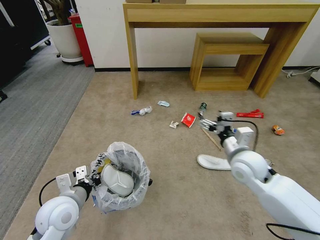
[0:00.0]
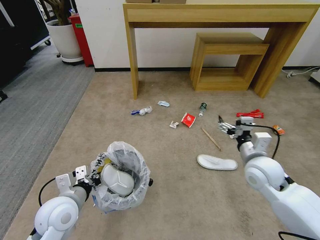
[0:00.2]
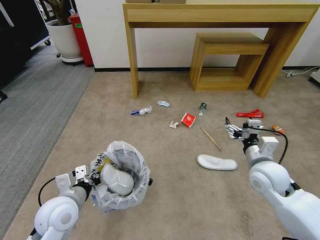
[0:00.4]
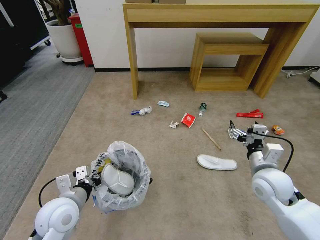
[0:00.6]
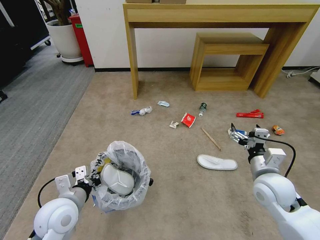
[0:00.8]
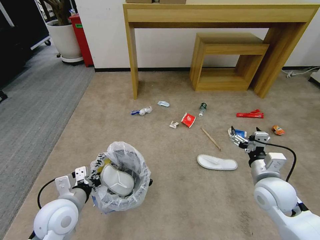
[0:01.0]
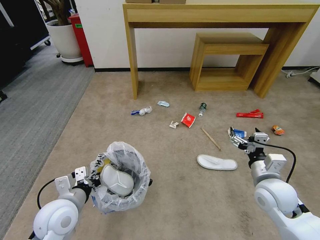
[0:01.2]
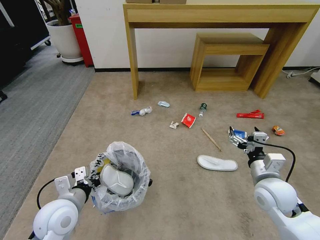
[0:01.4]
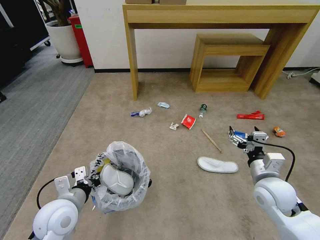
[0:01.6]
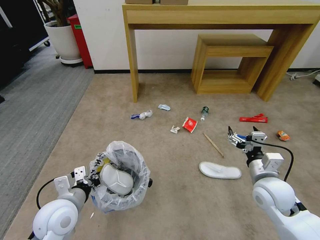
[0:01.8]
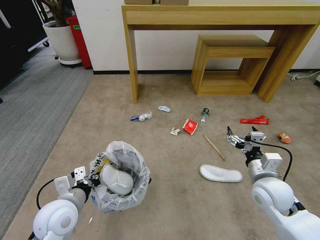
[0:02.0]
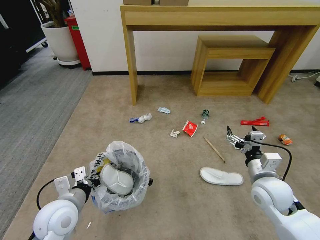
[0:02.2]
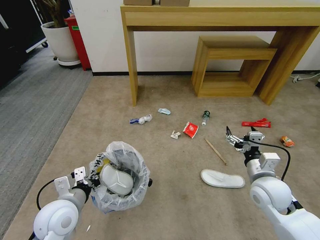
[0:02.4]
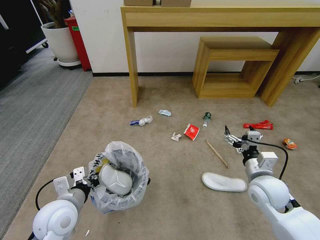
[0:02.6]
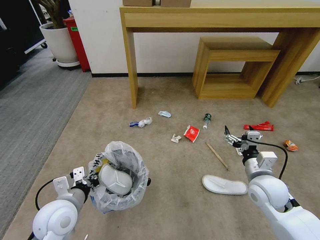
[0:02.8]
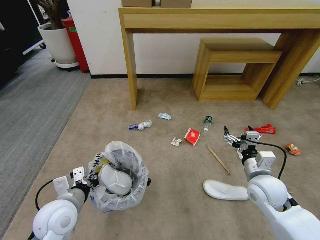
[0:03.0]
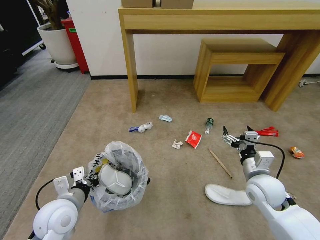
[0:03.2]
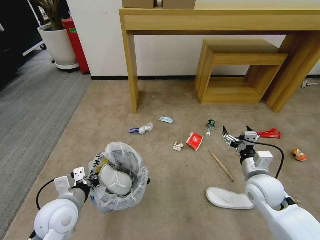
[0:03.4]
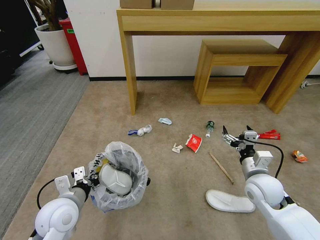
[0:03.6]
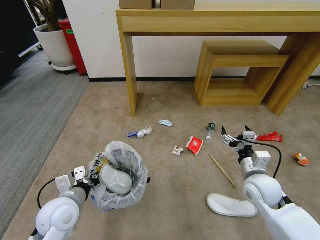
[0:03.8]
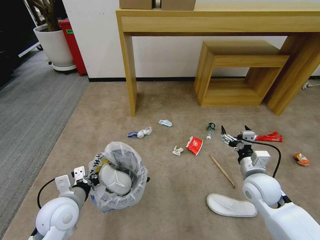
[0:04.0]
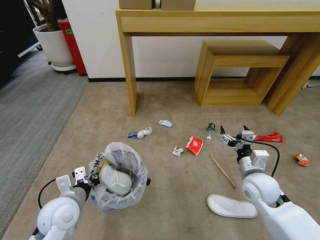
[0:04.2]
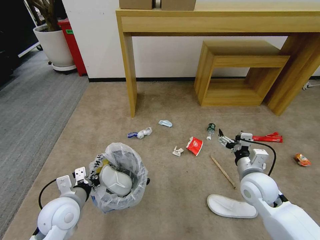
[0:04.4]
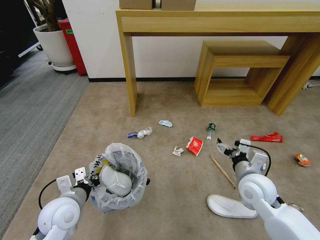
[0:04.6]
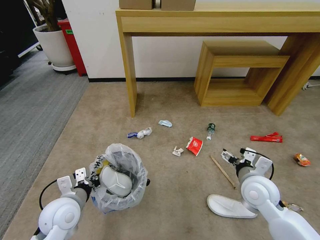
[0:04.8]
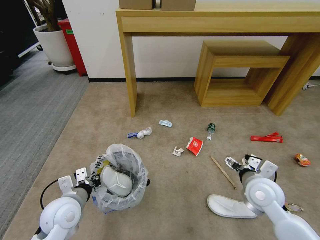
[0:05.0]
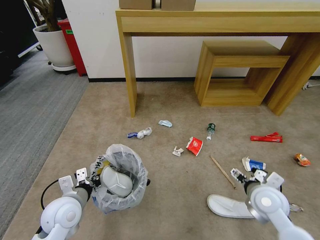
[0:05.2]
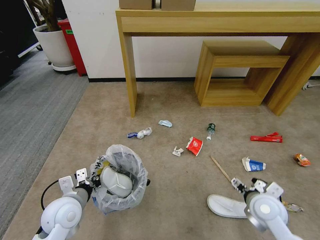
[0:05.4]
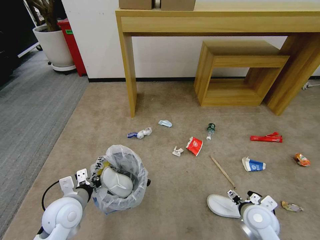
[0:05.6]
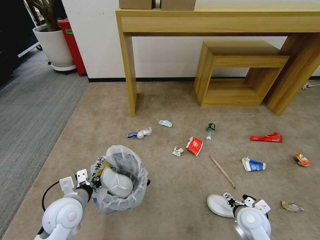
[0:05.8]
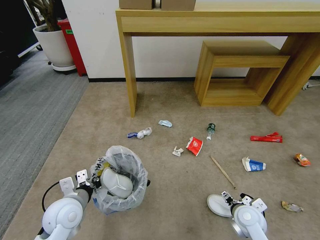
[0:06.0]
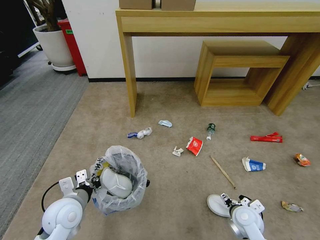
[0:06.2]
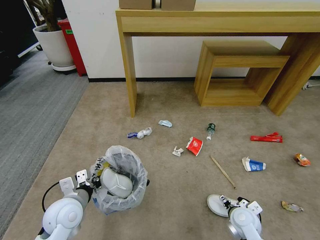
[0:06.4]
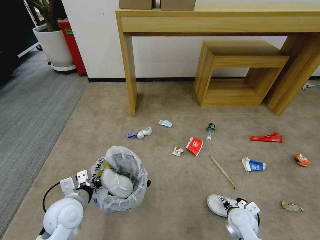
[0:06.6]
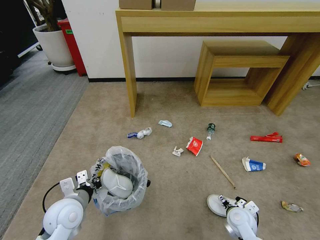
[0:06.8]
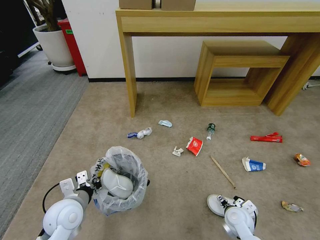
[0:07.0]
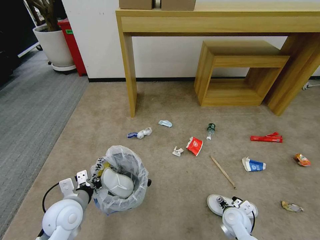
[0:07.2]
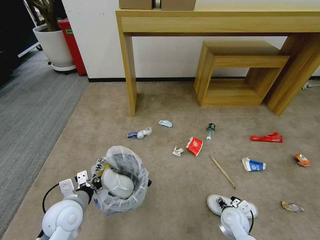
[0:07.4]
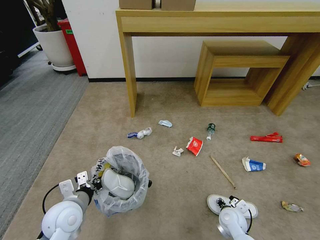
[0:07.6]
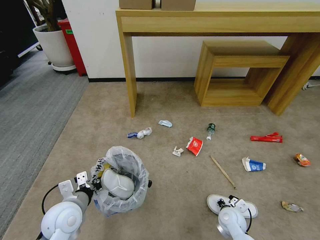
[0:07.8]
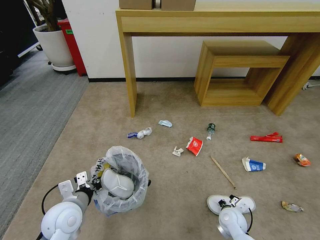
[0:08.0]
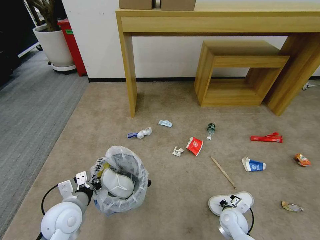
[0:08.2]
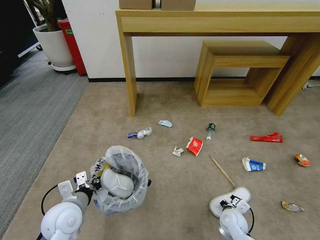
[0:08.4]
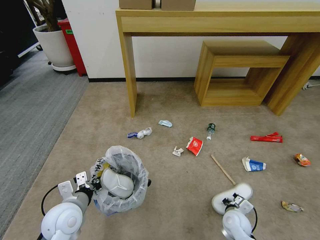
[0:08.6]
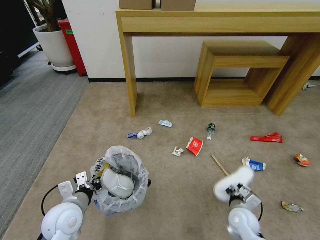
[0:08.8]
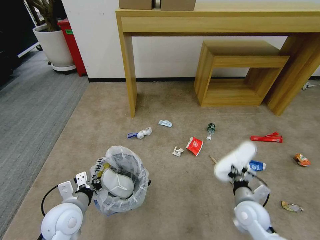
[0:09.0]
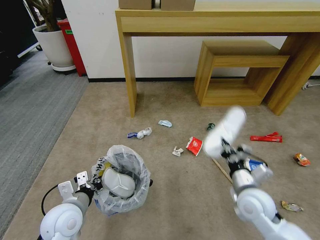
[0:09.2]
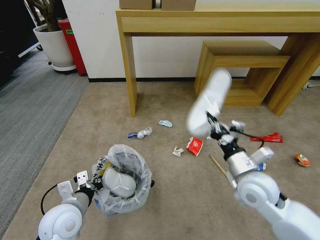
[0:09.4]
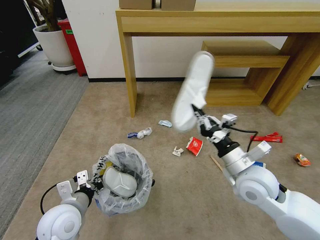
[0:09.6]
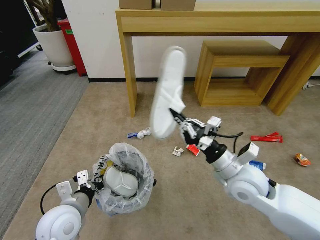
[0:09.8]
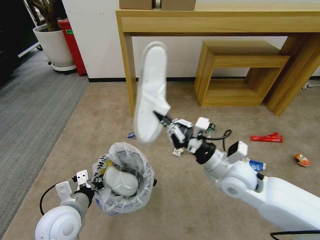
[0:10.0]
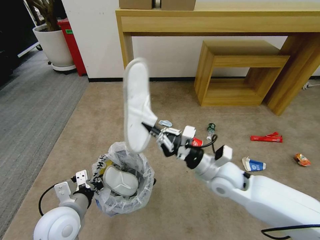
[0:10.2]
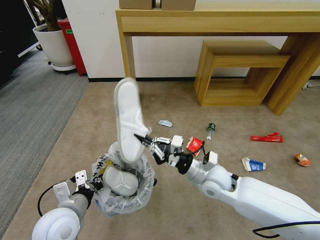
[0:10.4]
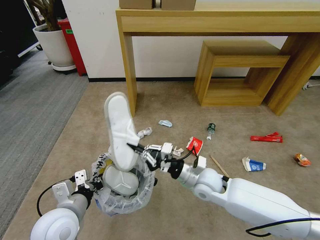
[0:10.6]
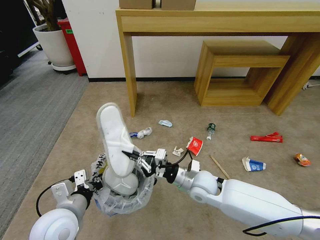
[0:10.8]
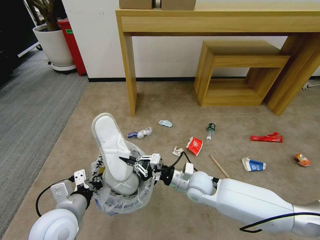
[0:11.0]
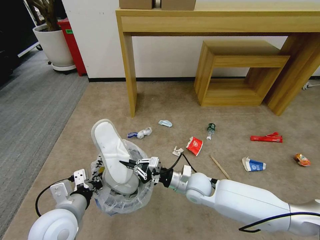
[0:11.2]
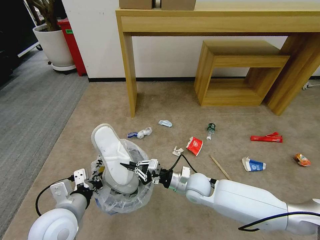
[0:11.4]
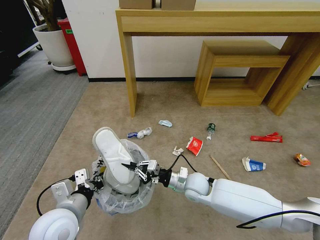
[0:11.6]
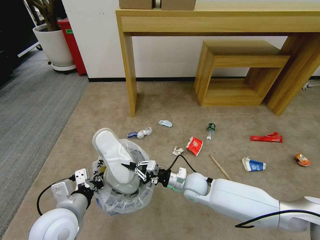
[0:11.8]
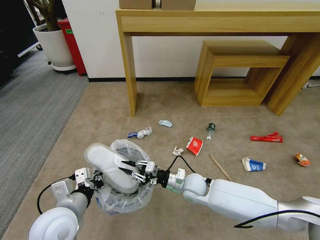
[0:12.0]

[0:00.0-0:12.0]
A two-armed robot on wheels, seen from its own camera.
Task of the whole recording: Pick up the trash bin and place the garbage on the floor into it.
0:00.0 to 0:01.6: The right gripper moves backward and to the right, about 10 cm.
0:04.4 to 0:06.0: The right gripper goes about 15 cm downward and backward.
0:06.0 to 0:07.6: The right gripper heads downward, covering some 10 cm, and closes its fingers.
0:07.6 to 0:09.0: The right gripper is displaced upward by some 10 cm, and closes.
0:09.0 to 0:10.4: The left gripper moves roughly 5 cm, while the right gripper heads to the left, upward and forward, covering roughly 20 cm.
0:10.4 to 0:12.0: The right gripper travels downward by about 10 cm.

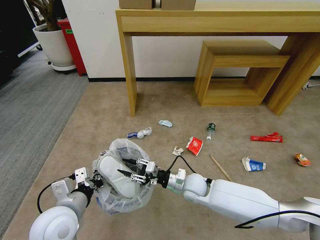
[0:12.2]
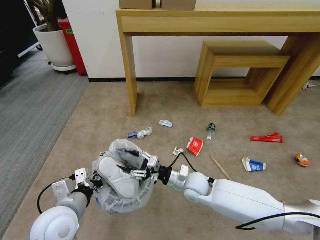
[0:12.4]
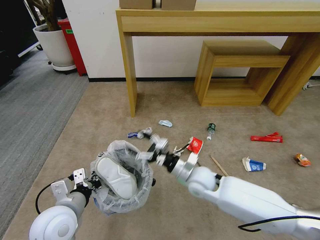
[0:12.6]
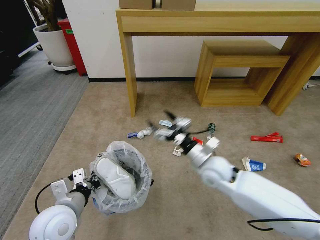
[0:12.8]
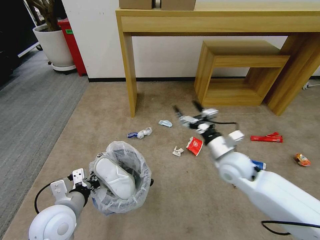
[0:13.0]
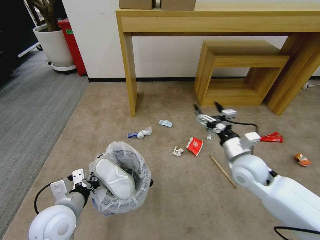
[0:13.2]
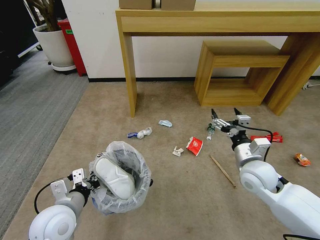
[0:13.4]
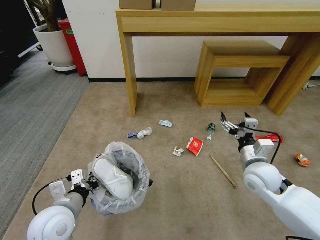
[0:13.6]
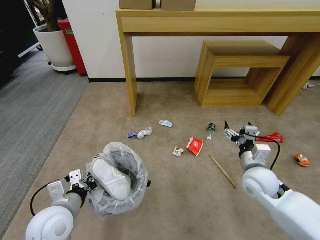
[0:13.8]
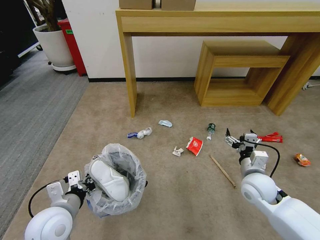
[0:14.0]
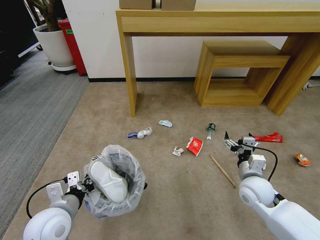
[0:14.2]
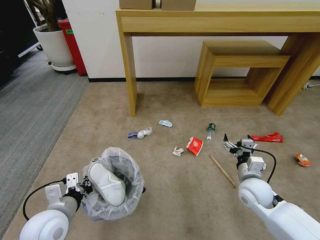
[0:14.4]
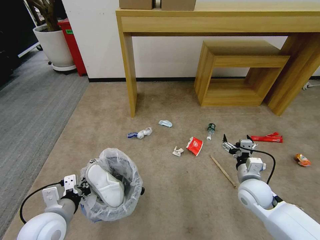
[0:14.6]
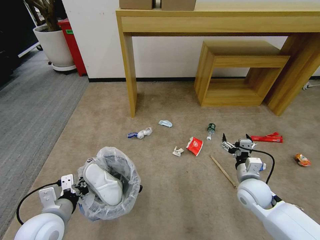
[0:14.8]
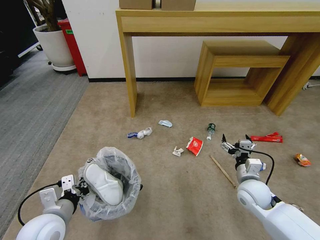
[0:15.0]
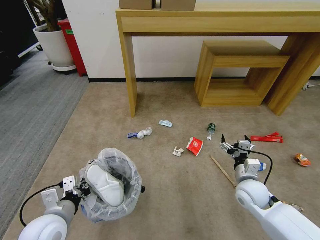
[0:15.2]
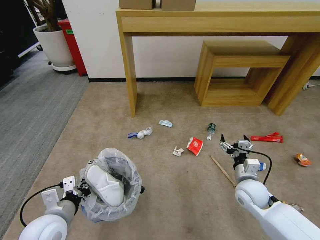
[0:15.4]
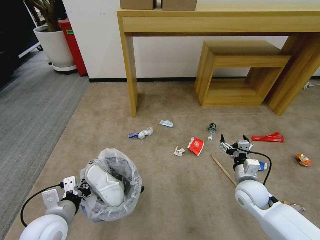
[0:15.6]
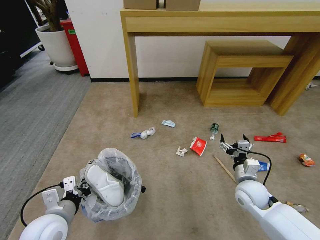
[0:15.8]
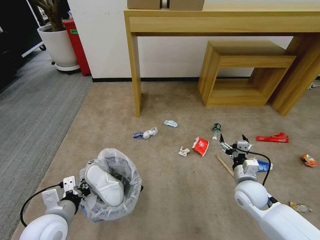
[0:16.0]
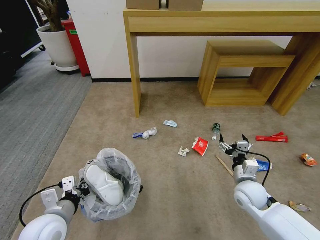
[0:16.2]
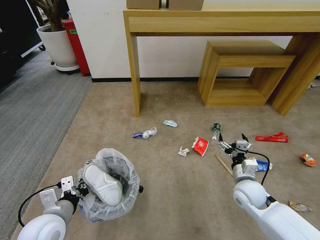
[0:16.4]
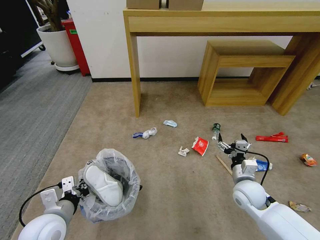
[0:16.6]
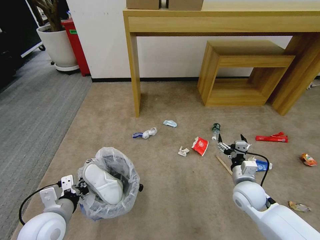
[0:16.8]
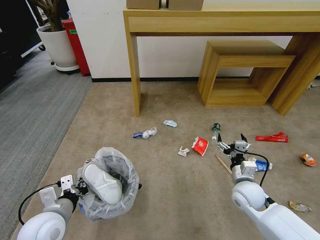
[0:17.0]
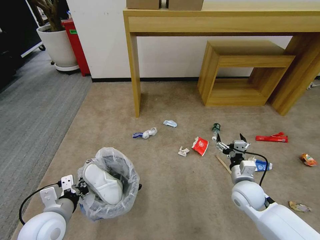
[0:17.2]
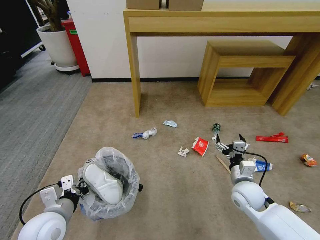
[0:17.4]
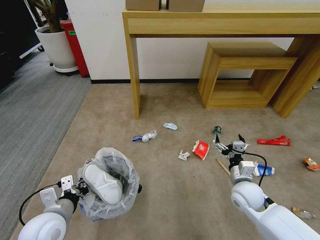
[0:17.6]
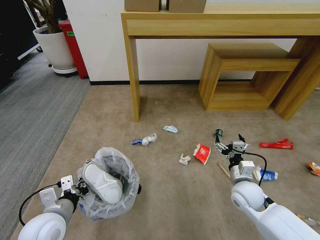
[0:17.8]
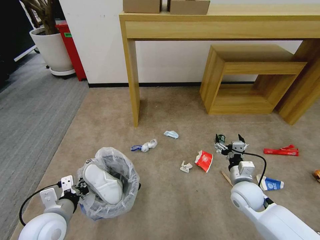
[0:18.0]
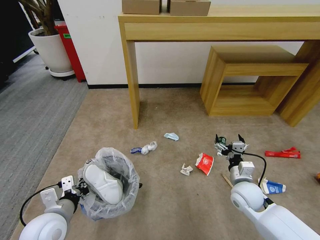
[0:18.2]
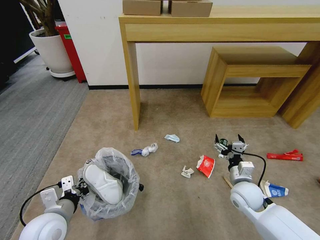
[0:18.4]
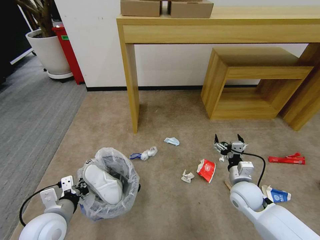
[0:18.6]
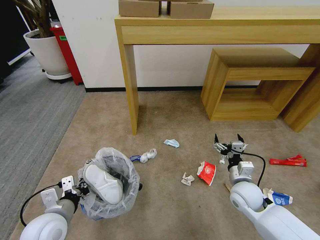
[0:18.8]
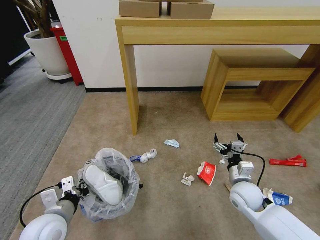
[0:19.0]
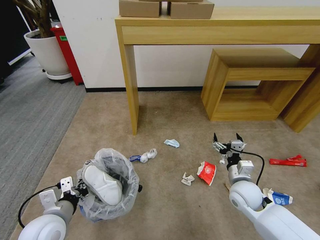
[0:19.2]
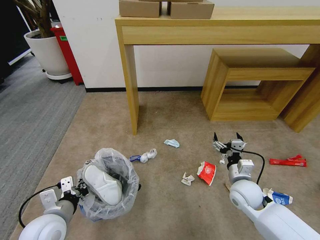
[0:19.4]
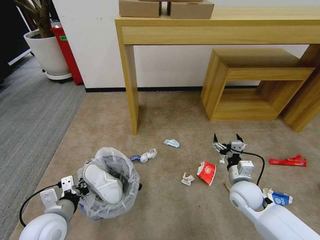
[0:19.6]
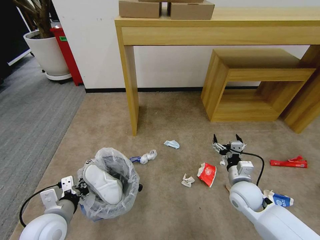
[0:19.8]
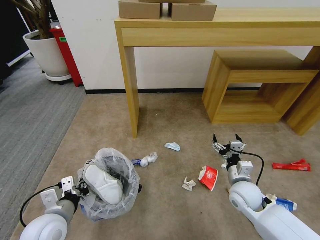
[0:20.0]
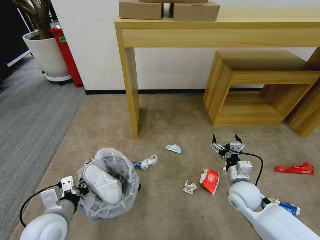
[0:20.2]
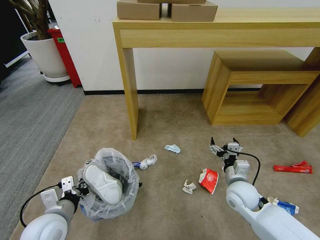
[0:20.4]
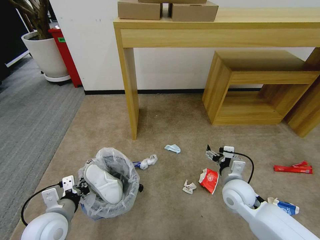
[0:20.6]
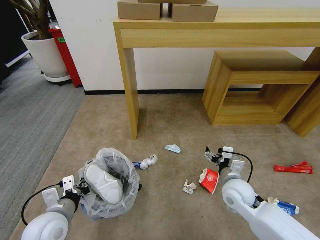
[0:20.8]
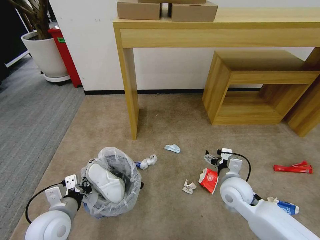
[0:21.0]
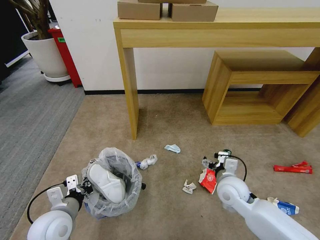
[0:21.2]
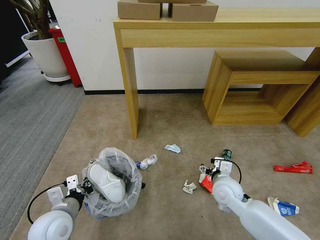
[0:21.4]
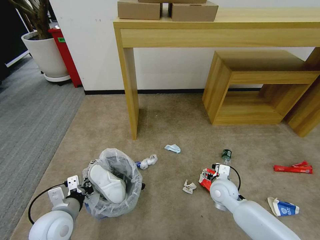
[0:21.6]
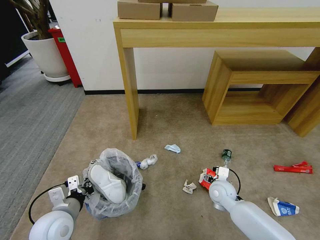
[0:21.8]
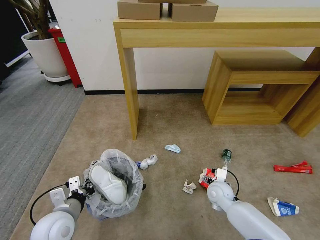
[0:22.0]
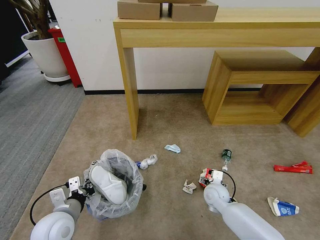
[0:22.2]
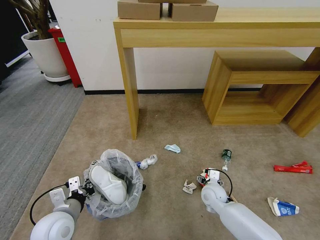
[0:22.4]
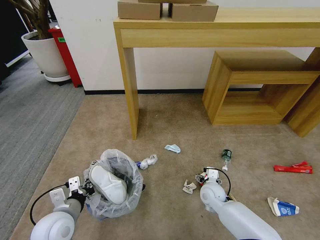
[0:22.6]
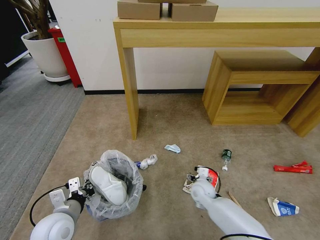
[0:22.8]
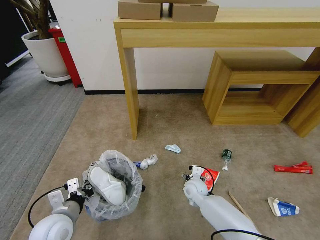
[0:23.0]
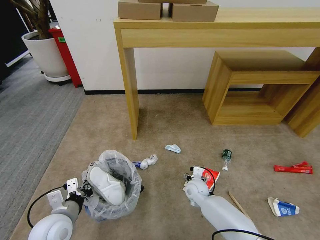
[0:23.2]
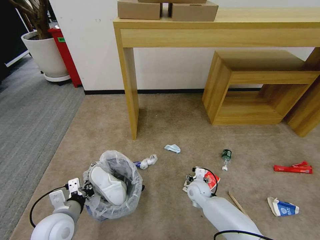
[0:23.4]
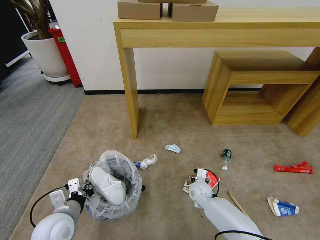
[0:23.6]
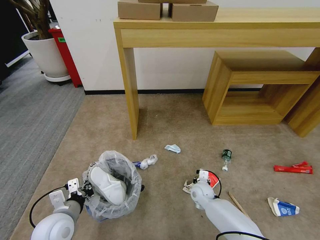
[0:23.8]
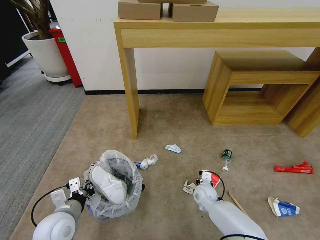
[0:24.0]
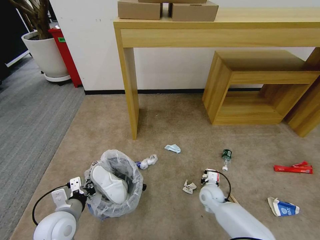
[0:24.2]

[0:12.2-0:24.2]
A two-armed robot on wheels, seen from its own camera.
Task of the whole recording: Pick up the trash bin and place the garbage on the floor into it.
0:12.2 to 0:13.8: The right gripper travels to the right and upward by about 20 cm, and opens.
0:13.8 to 0:15.2: The right gripper goes some 5 cm downward.
0:15.2 to 0:16.6: Neither gripper changes place.
0:18.2 to 0:19.8: Neither gripper changes place.
0:19.8 to 0:21.2: The right gripper shifts by about 5 cm.
0:21.2 to 0:22.6: The right gripper moves downward, approximately 10 cm.
0:22.6 to 0:24.2: The right gripper closes its fingers.
